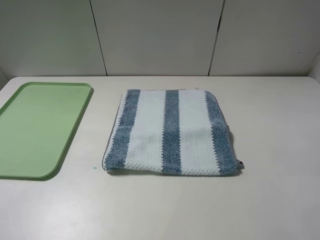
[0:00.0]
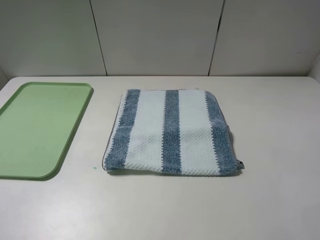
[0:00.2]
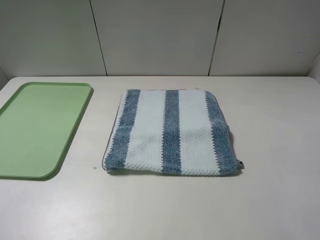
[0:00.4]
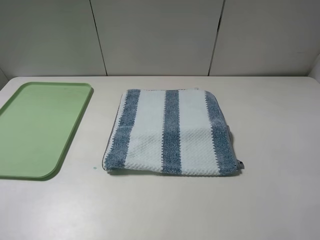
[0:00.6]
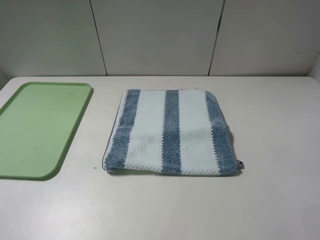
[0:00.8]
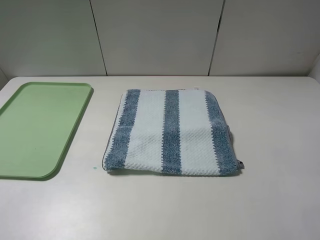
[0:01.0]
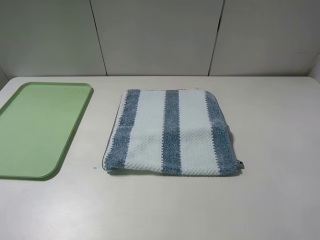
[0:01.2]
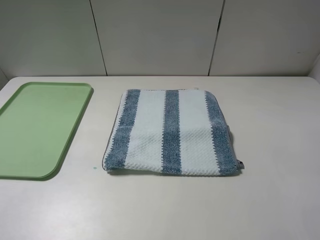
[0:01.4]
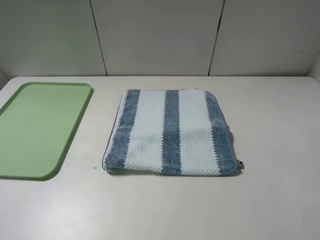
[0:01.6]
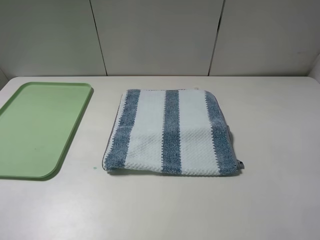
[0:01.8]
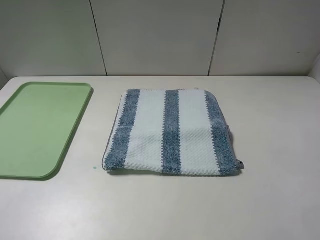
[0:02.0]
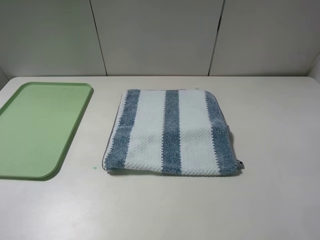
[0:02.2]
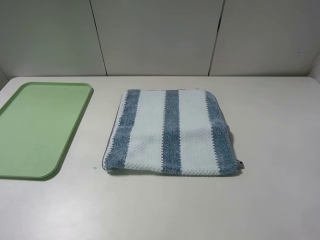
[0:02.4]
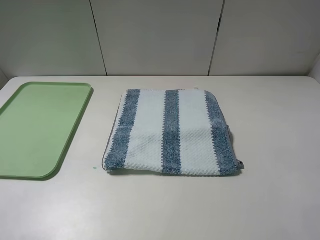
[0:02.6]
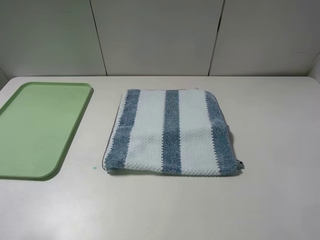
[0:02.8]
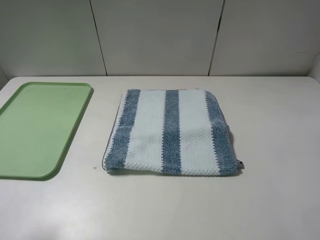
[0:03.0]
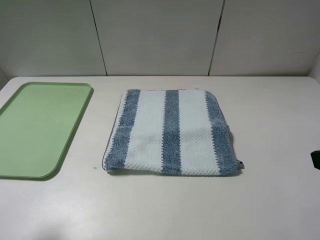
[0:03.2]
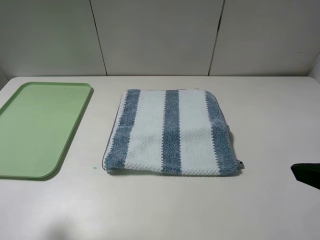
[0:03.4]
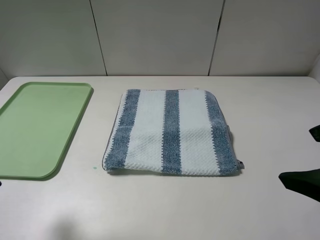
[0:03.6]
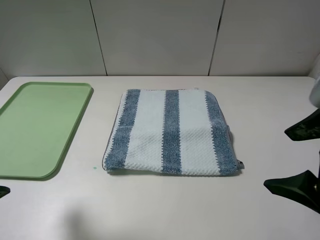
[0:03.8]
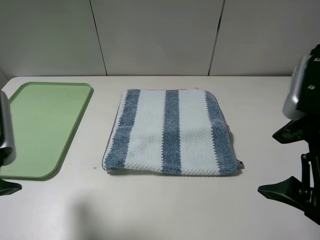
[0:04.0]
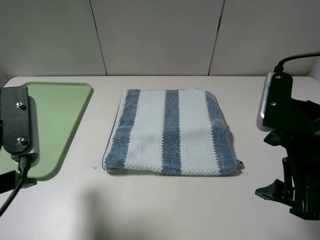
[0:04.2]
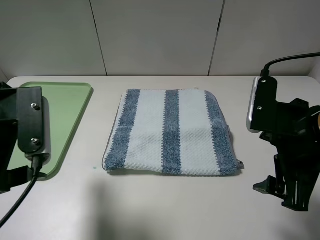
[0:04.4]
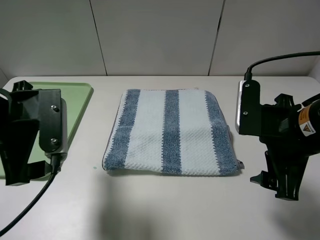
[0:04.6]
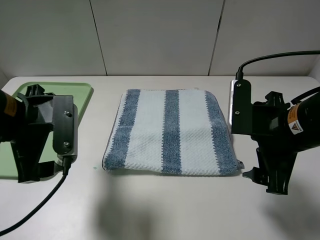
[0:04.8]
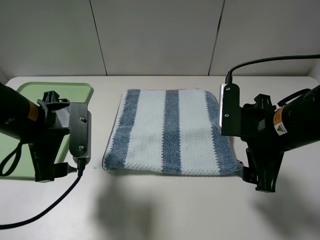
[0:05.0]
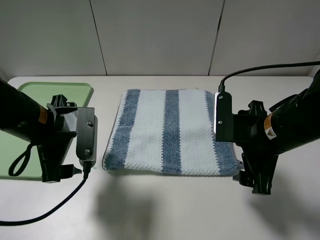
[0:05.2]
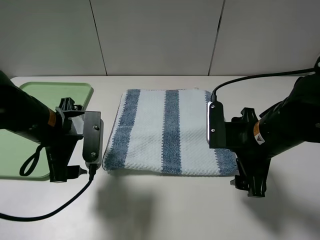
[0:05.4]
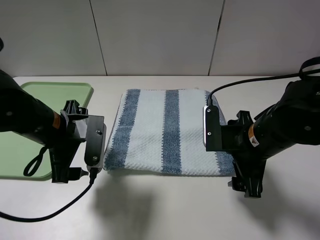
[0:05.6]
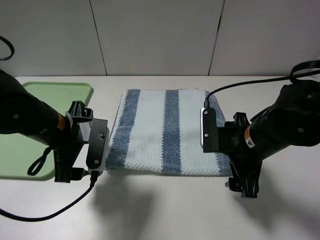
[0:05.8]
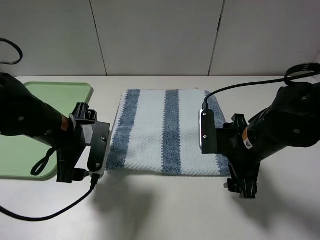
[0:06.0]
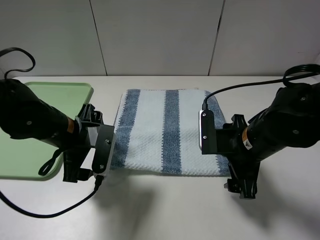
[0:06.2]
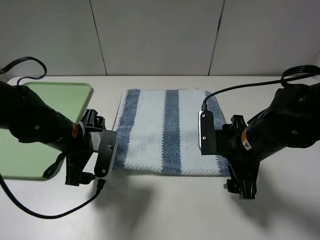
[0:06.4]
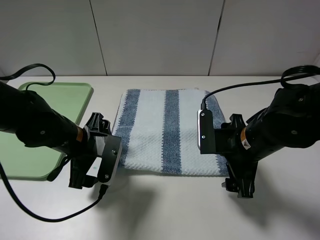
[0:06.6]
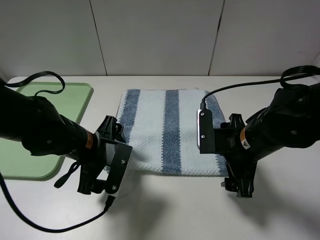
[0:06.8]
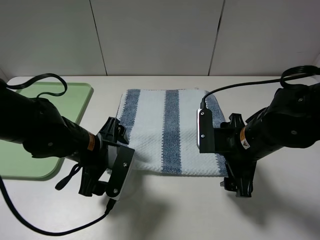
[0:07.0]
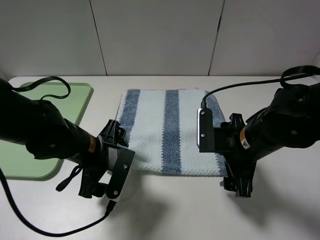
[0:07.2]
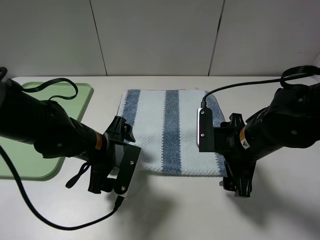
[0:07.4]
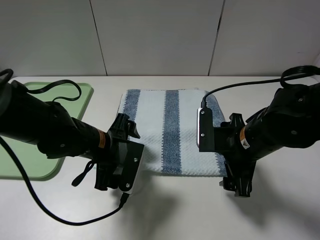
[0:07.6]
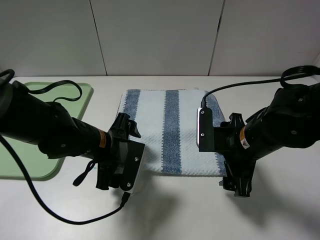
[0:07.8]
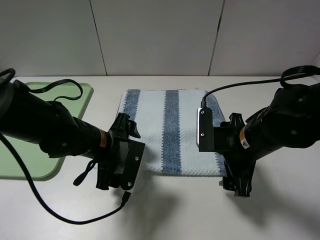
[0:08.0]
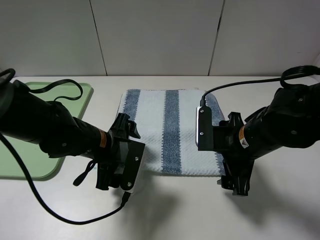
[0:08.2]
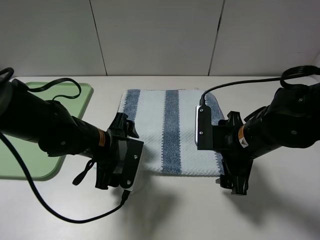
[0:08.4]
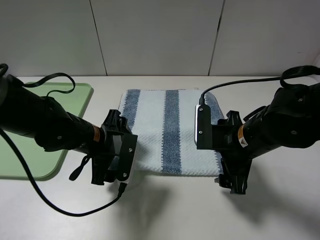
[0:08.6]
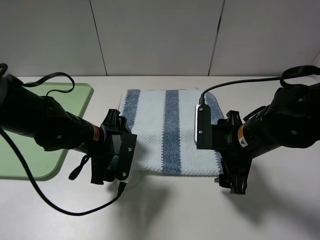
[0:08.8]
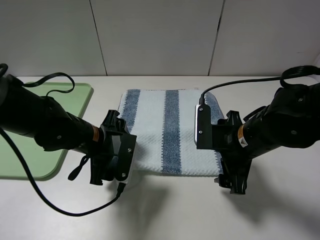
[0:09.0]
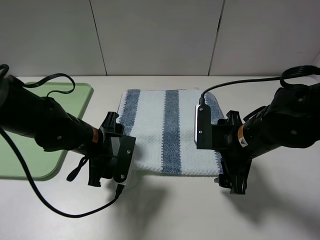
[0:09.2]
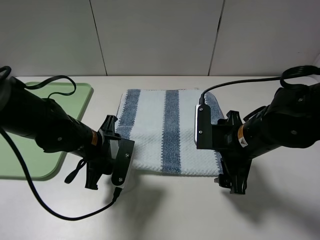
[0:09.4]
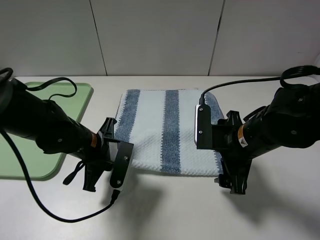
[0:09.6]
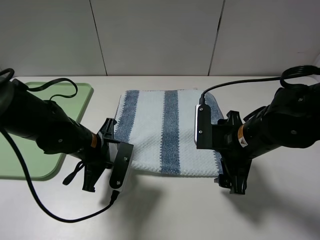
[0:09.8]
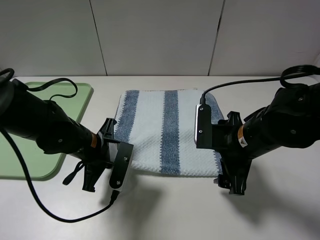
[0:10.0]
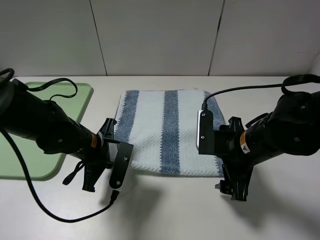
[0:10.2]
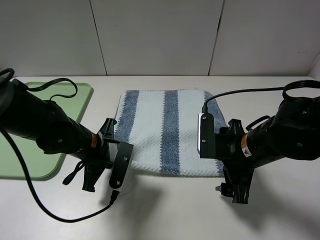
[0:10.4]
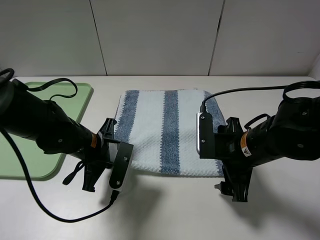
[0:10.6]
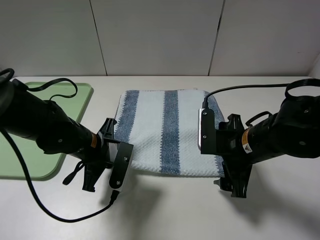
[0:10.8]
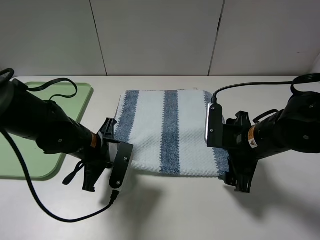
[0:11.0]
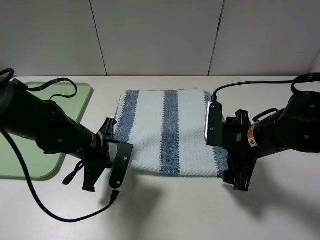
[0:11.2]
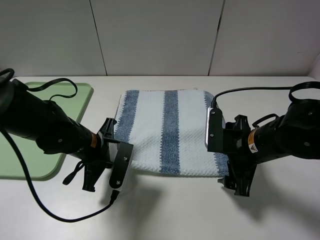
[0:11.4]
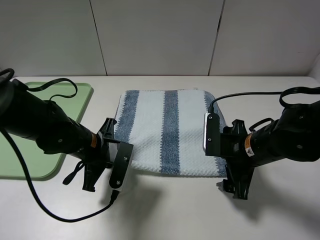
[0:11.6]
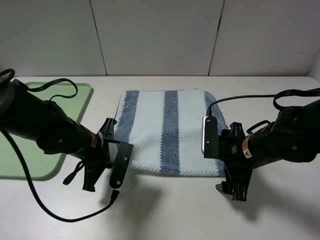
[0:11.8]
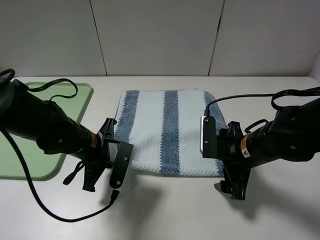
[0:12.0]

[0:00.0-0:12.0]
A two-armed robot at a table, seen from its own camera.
Step, 0:00.0 to 0:09.8: Grasp the blue white towel with the left gripper.
0:00.0 to 0:01.6: Neither gripper changes place.
0:03.0 to 0:04.4: The left gripper heads forward, to the right and downward, covering roughly 15 cm. Meanwhile the right gripper heads forward, to the left and downward, covering about 15 cm.
0:04.4 to 0:06.0: The left gripper travels downward, forward and to the right by about 15 cm. Meanwhile the right gripper heads downward and forward, covering approximately 10 cm.
0:06.0 to 0:07.6: The left gripper shifts some 5 cm to the right.
0:07.6 to 0:09.0: The grippers make only small movements.
0:09.0 to 0:10.4: The left gripper closes its fingers.
0:10.4 to 0:12.0: There are only small adjustments of the grippers.

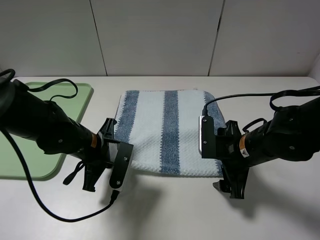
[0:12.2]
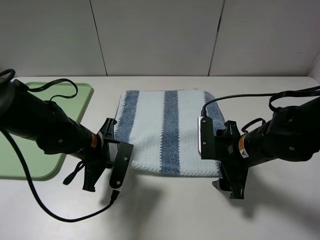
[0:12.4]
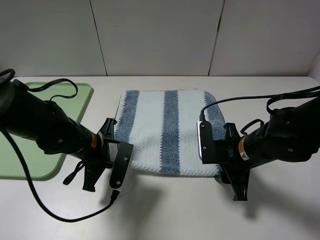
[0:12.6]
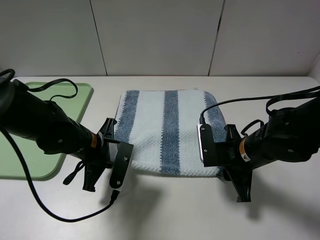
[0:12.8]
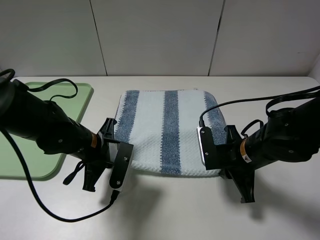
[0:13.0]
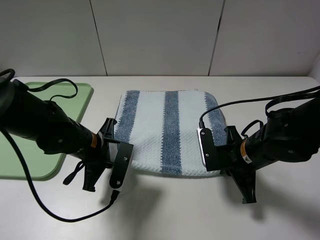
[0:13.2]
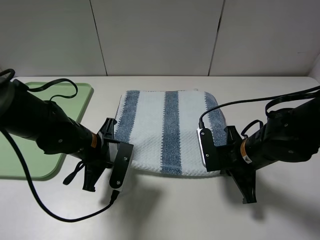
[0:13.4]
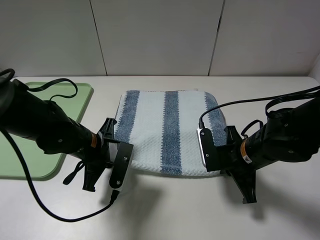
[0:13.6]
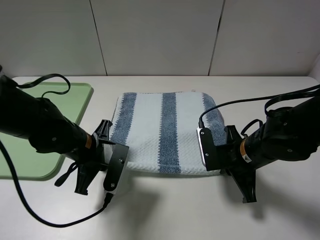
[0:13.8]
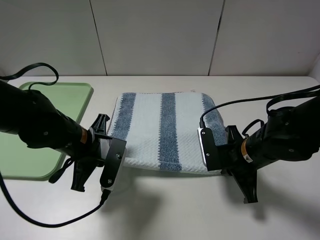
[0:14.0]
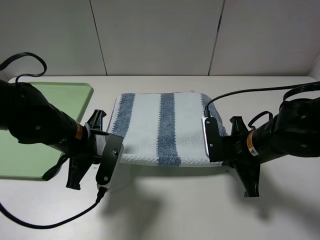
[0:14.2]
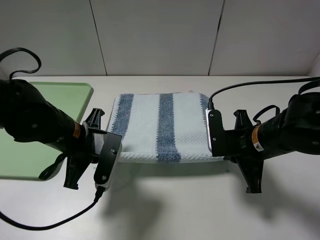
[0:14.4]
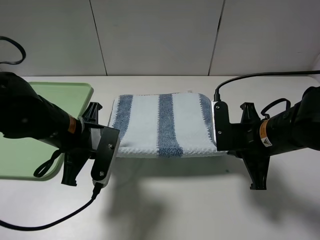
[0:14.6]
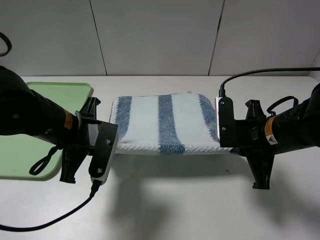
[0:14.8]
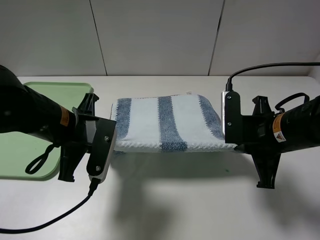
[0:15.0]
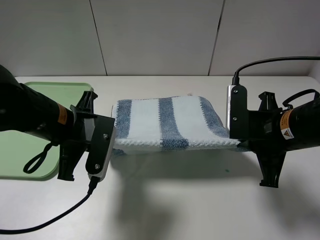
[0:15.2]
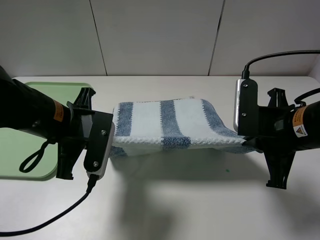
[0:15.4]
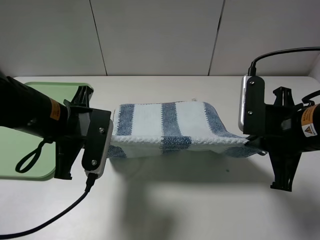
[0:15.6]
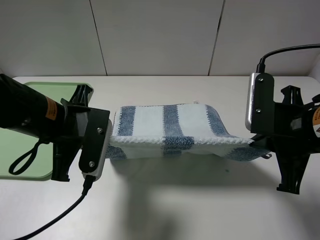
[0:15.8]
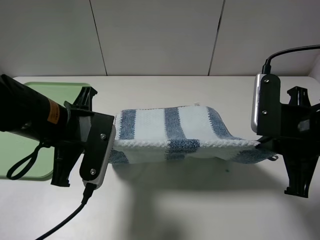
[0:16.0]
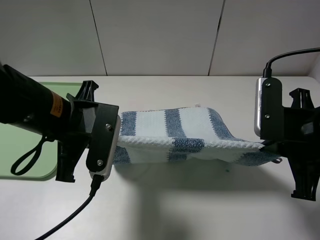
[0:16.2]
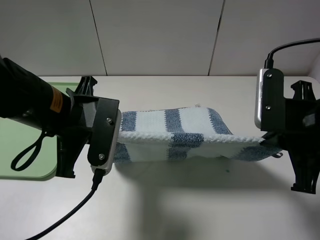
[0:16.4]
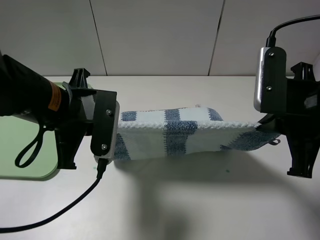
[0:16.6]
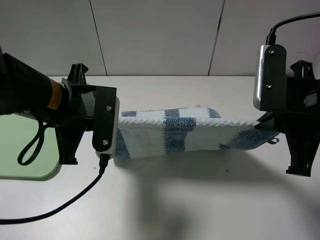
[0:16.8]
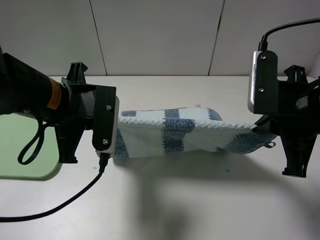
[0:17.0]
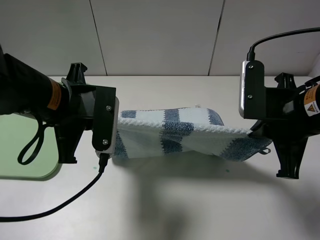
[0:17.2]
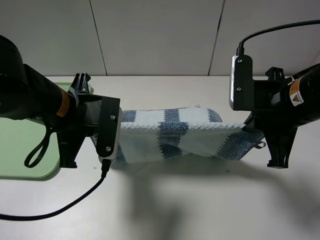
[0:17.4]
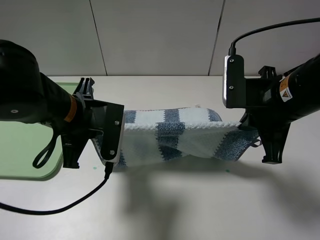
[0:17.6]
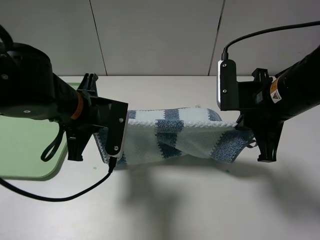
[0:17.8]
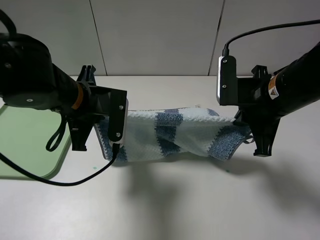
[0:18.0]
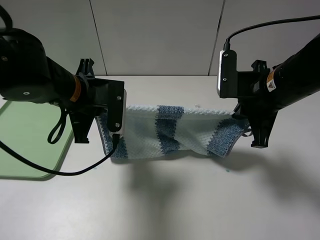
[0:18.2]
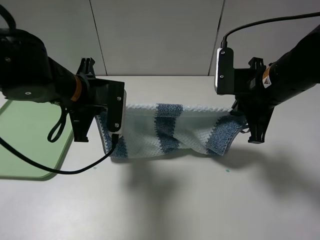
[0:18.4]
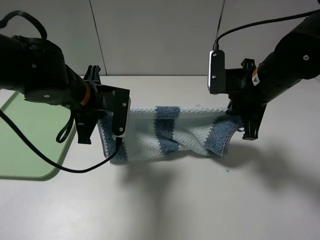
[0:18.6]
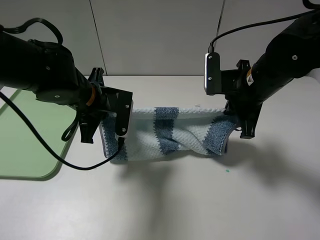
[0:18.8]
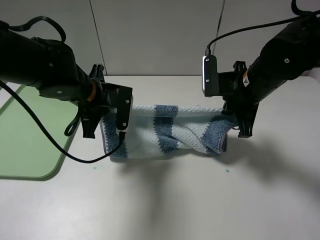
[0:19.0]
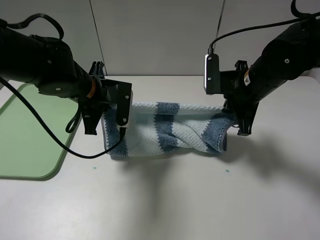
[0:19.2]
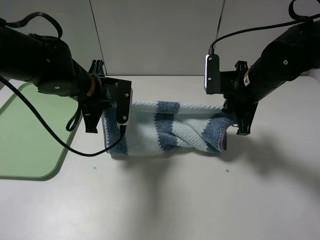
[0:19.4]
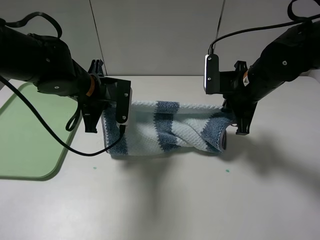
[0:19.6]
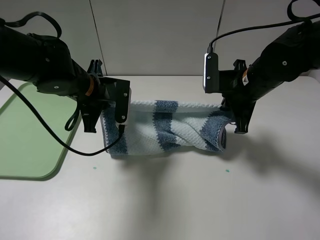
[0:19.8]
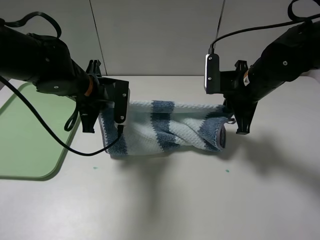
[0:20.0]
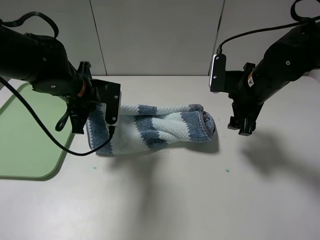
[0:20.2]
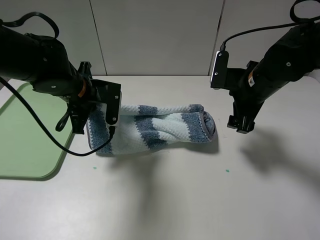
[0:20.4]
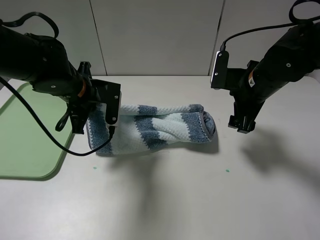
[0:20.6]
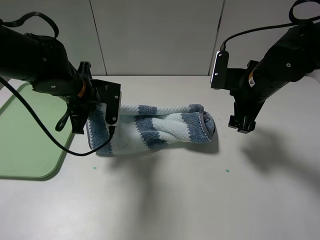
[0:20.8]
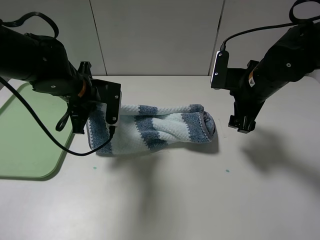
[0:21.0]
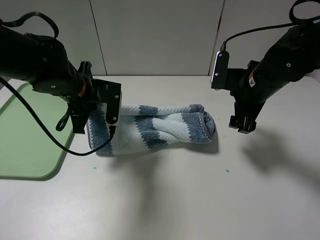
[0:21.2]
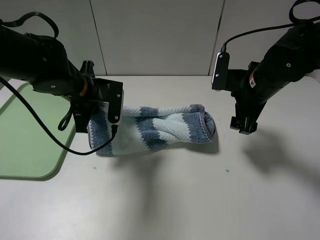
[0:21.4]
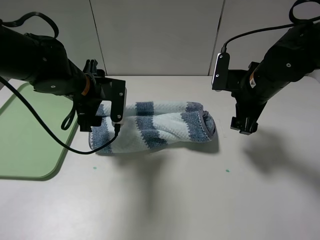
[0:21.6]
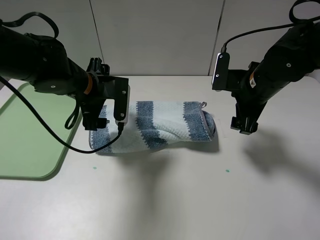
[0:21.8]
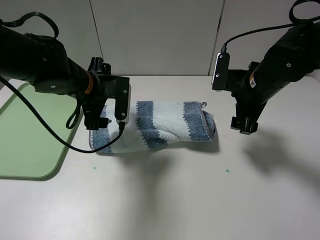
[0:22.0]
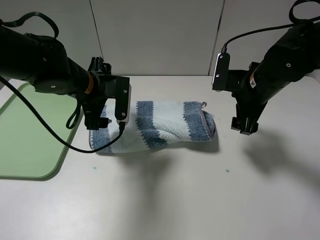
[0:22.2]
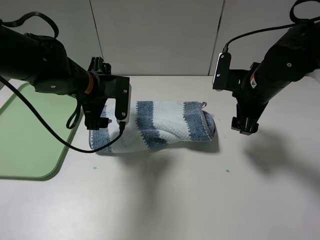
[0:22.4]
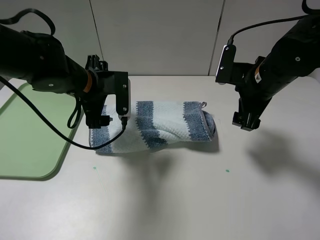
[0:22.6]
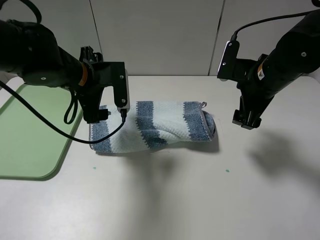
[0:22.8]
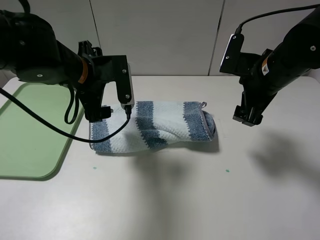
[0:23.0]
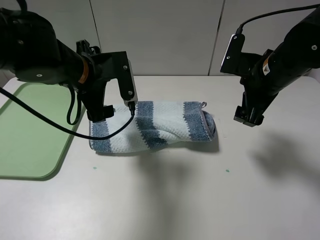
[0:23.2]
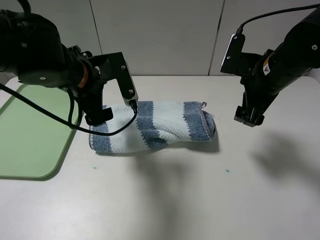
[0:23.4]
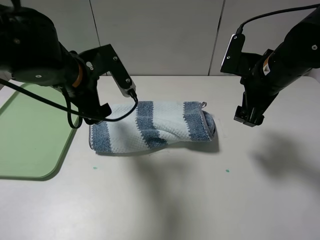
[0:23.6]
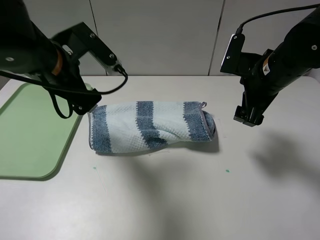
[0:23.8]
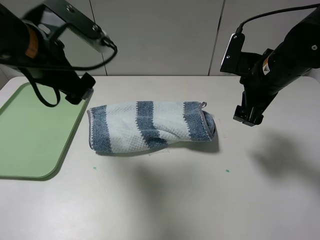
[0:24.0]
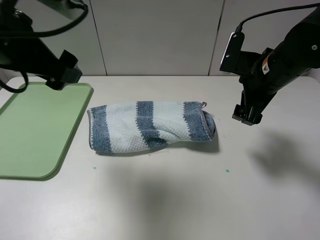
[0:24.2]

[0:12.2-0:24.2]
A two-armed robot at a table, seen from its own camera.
Step, 0:13.8 to 0:20.2: Fold the blue white towel upwards with the right gripper.
Step, 0:20.4 to 0:22.6: Fold the blue white towel upwards with the left gripper.
0:12.2 to 0:13.8: The right gripper closes.
0:13.8 to 0:15.2: Both grippers move upward, some 10 cm.
0:15.2 to 0:16.6: The right gripper is displaced upward by roughly 5 cm.
0:16.6 to 0:18.2: The grippers both shift forward by roughly 5 cm.
0:18.2 to 0:19.8: Both grippers move forward, roughly 5 cm.
0:19.8 to 0:21.2: The right gripper opens.
0:21.2 to 0:22.6: The left gripper opens its fingers.
0:22.6 to 0:24.2: The left gripper is displaced upward and backward by roughly 20 cm.
